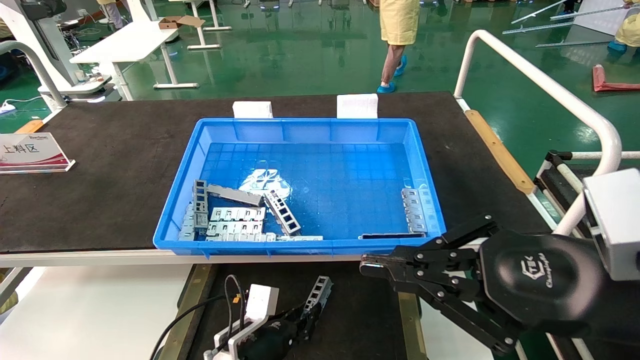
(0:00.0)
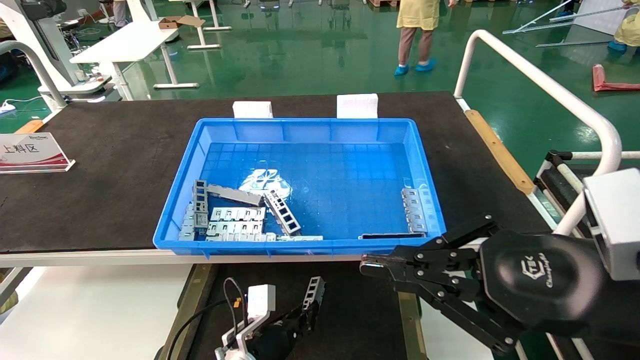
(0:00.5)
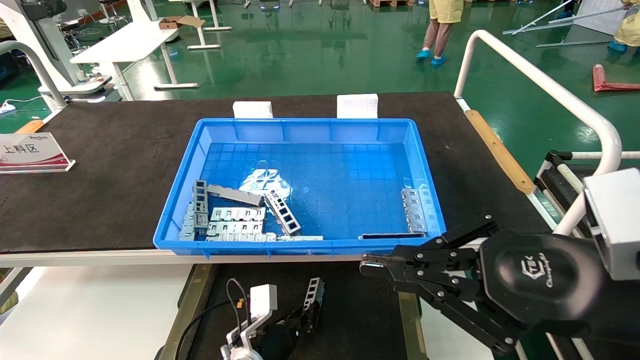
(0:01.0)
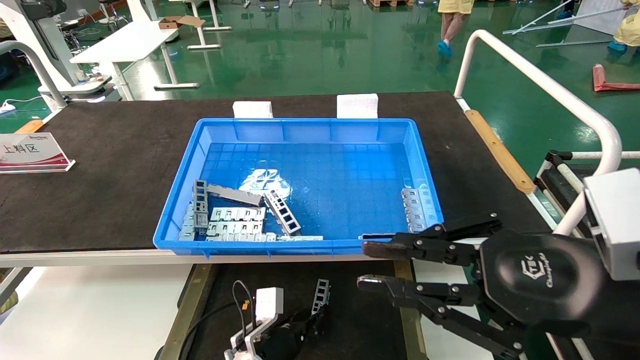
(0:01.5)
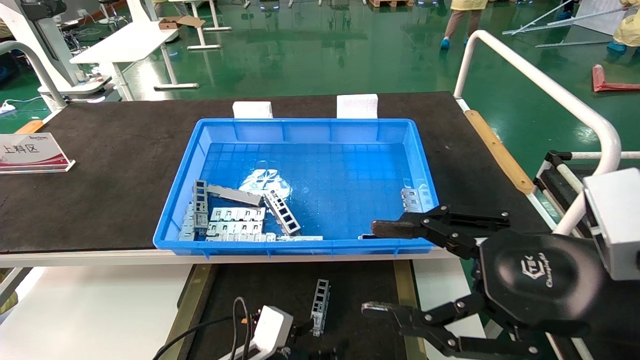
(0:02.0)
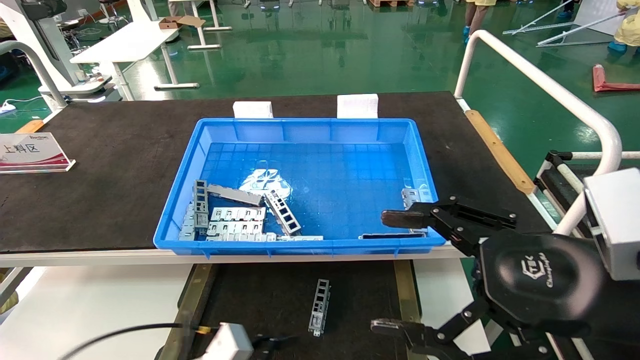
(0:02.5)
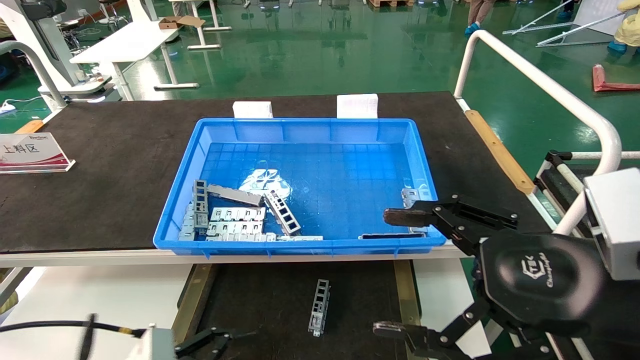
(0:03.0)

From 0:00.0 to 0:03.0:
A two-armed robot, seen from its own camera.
Task of the whole recording: Grasp the part with one hand and place it on the black container.
From 0:00.0 to 0:01.5: There are only small adjustments of the grippers.
From 0:01.5 to 0:03.0: The right gripper opens up; the left gripper goes roughly 25 cm backward, to the left and upward, and opens.
